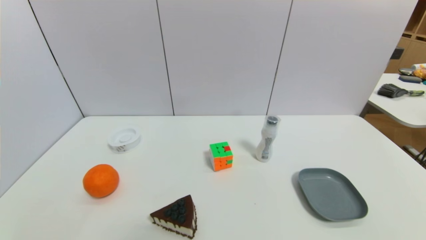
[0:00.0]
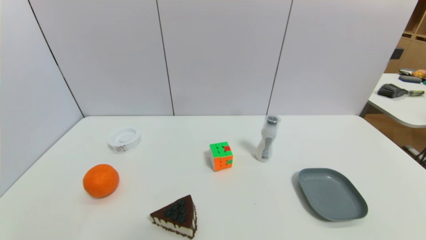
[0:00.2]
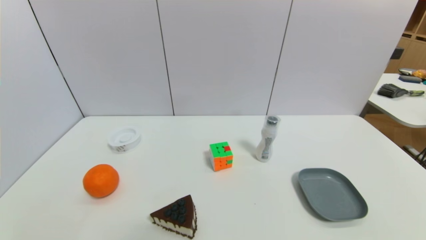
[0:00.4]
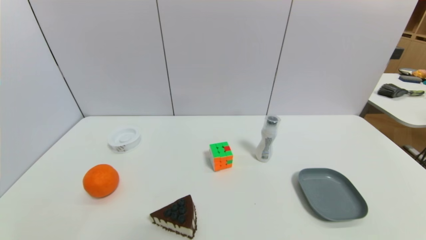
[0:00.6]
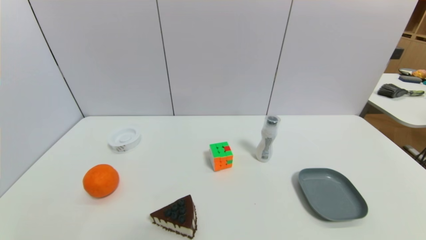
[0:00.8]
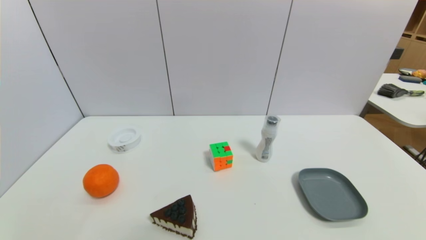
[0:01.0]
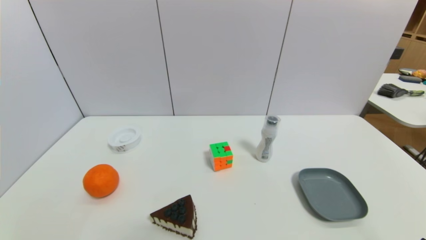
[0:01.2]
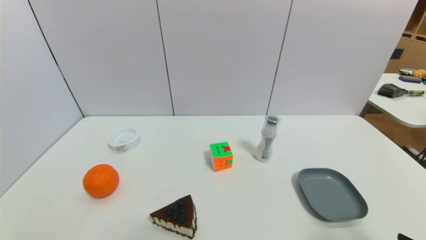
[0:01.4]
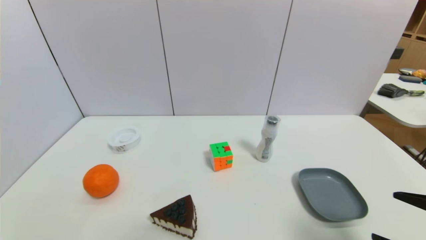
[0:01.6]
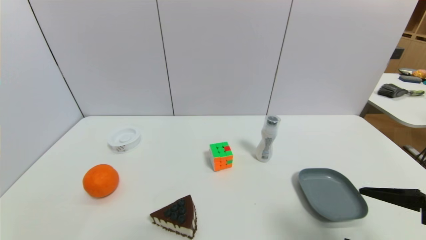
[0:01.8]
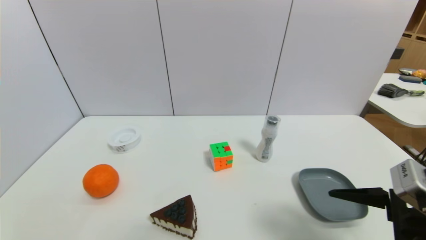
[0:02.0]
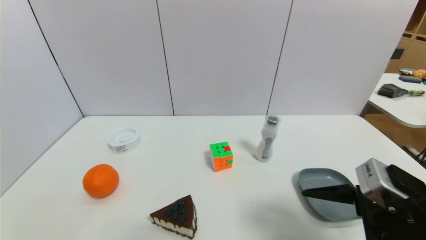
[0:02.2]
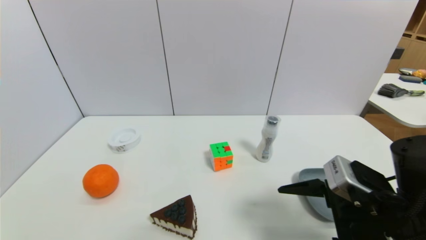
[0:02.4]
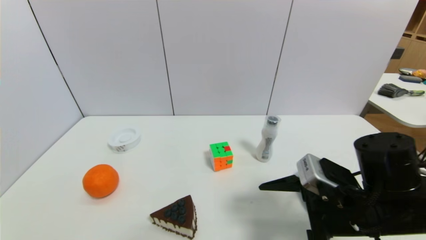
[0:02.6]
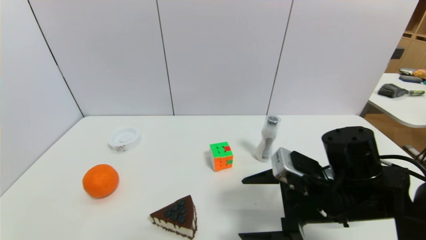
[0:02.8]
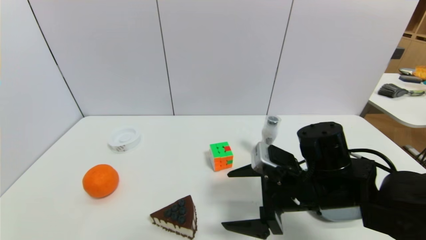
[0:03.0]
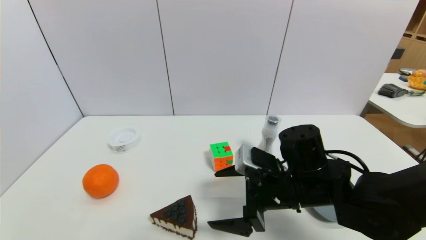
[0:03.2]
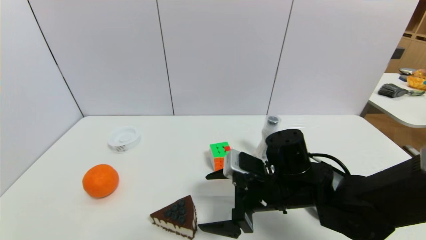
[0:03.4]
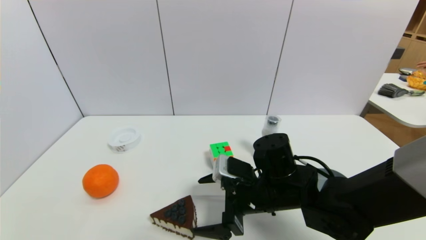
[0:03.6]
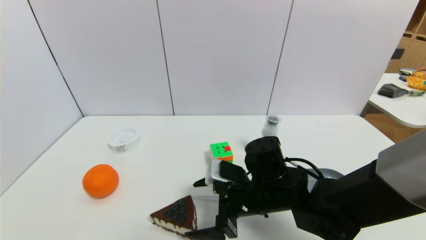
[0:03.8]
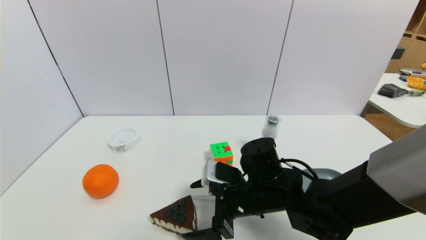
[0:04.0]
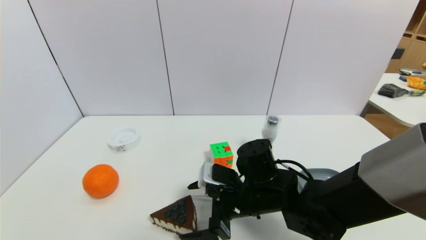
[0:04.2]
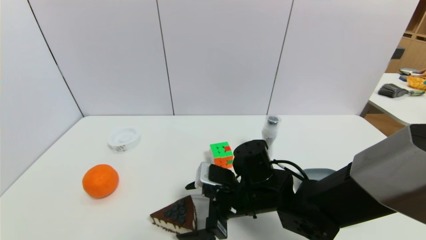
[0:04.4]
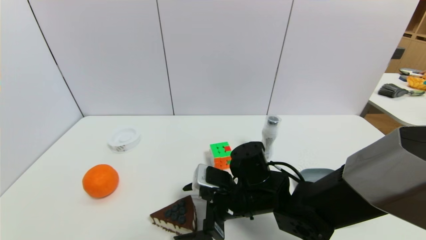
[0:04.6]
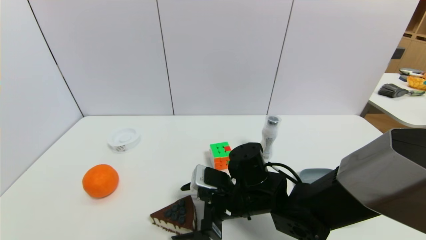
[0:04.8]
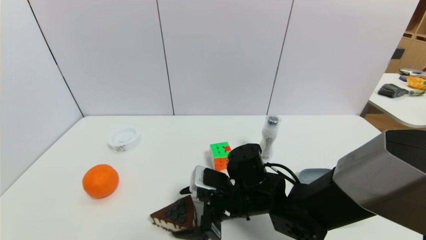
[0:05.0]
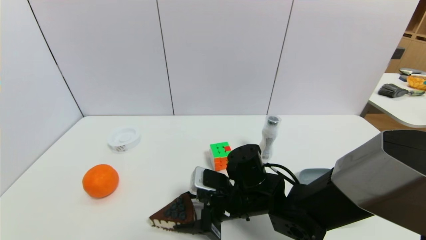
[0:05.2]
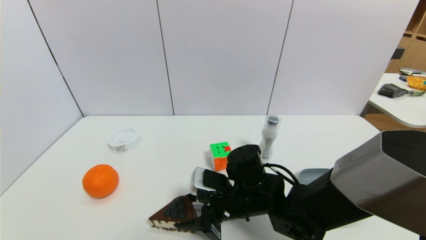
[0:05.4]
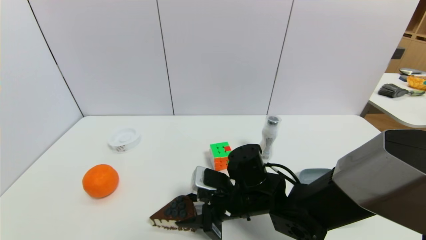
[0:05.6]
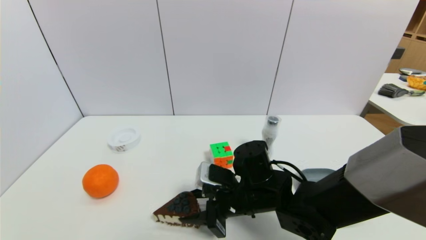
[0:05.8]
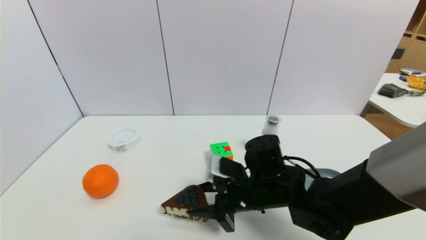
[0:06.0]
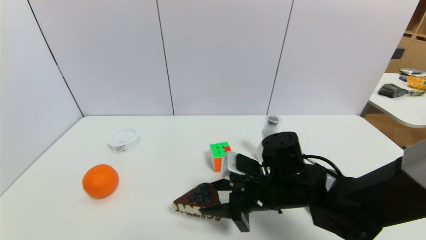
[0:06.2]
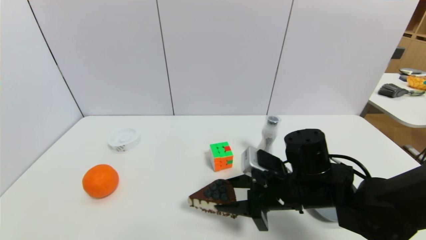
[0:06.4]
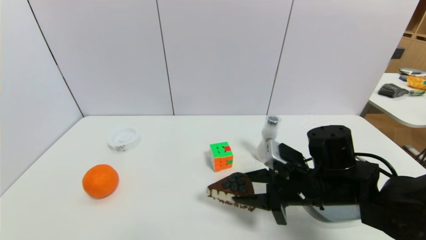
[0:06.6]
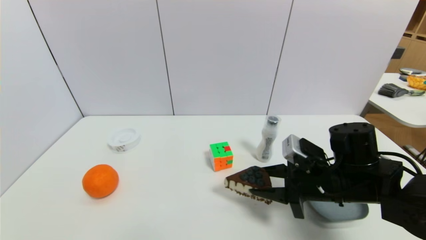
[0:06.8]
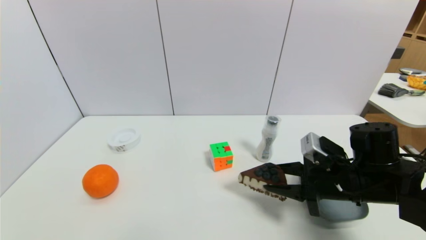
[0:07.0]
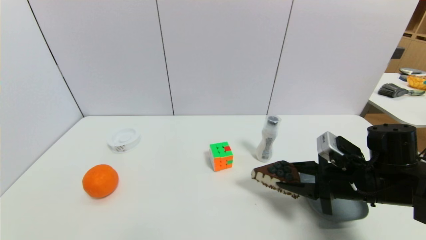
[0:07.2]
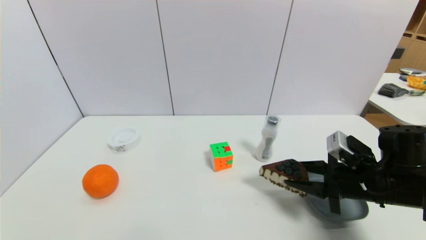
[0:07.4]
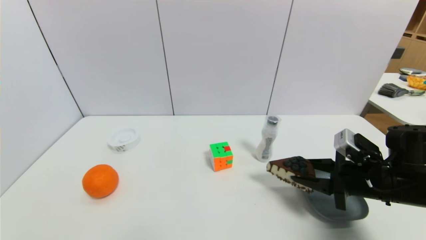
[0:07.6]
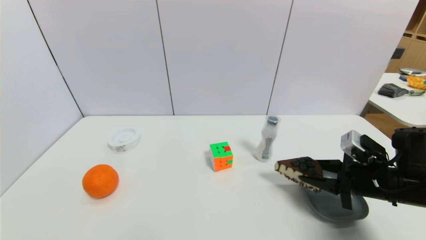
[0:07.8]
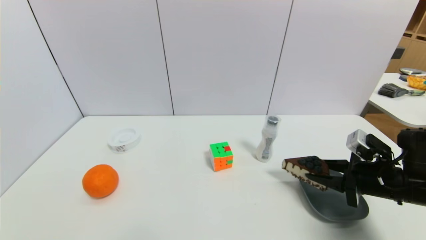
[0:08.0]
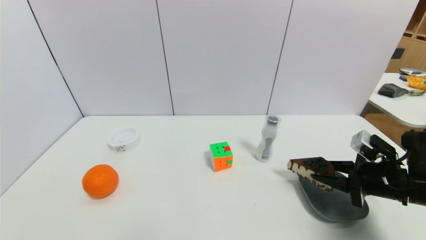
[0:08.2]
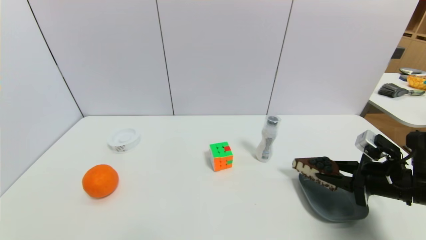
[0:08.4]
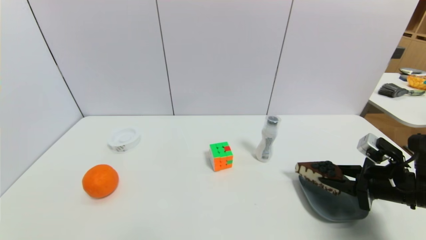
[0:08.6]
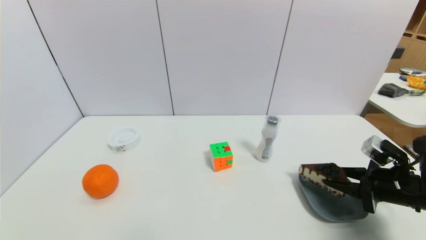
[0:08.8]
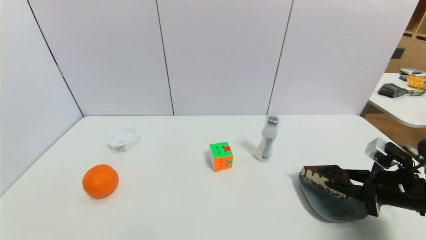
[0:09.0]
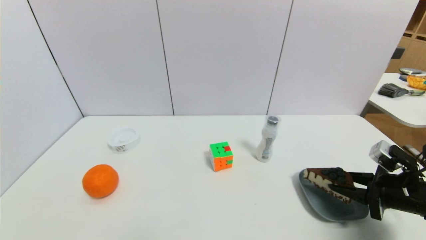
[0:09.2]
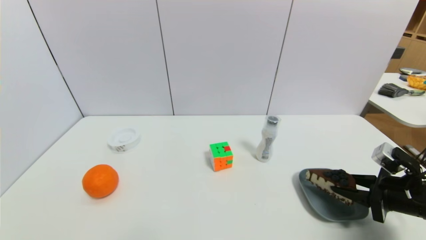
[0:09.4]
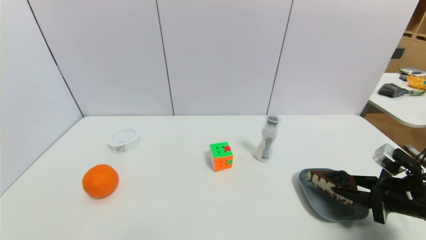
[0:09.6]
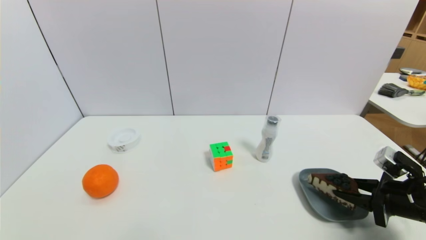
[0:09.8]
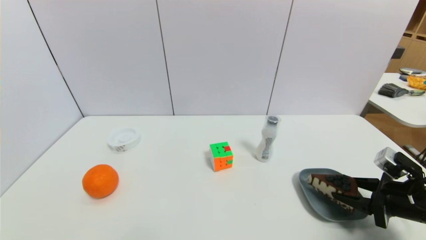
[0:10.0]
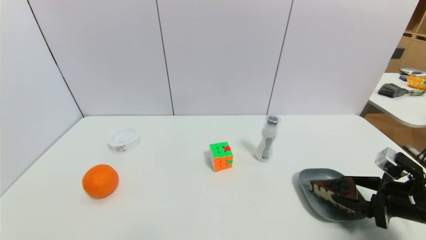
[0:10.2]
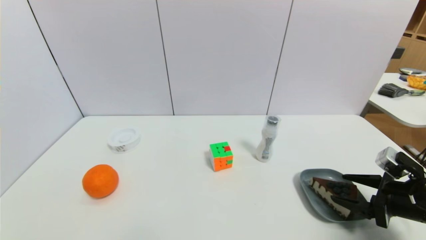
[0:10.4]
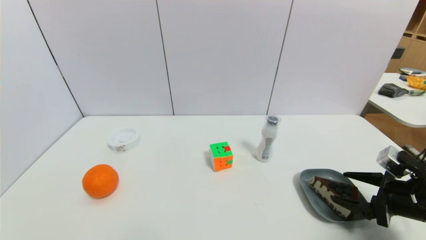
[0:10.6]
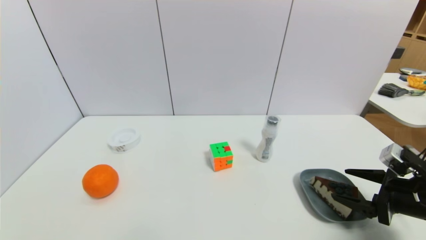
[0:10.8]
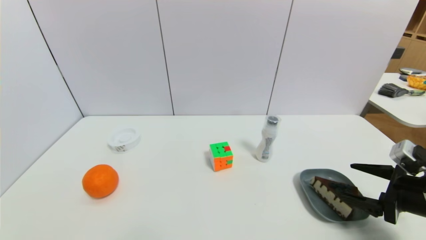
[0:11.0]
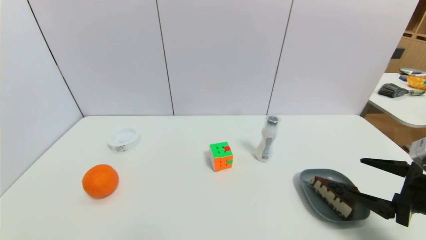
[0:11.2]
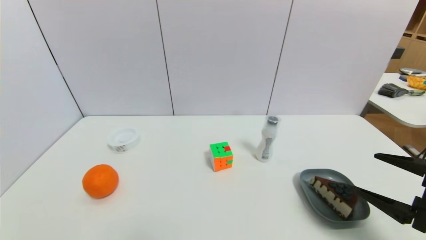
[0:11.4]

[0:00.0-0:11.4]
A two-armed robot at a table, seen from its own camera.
Task of the whole recording: use a gripper to pick the target object and place on the dish.
Step, 0:00.0 to 0:05.4: Grasp the chocolate cake with the right gripper.
Step, 0:05.6 to 0:11.2: Place the chocolate cake on the dish with the right gripper.
0:01.4 to 0:02.8: The right gripper goes some 20 cm forward and to the left.
0:02.8 to 0:04.2: The right gripper goes some 10 cm to the left and downward.
0:04.2 to 0:05.6: The right gripper closes up.
0:05.6 to 0:07.2: The right gripper goes roughly 20 cm to the right.
0:07.2 to 0:08.6: The right gripper shifts some 10 cm to the right.
0:08.6 to 0:10.0: The grippers stay close to where they were, moving slightly.
0:10.0 to 0:11.4: The right gripper heads upward and backward, covering roughly 10 cm, and opens its fingers.

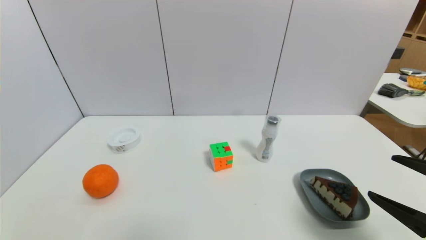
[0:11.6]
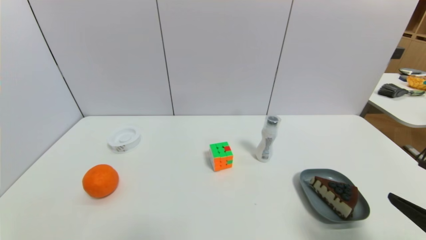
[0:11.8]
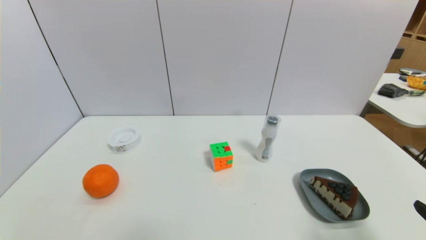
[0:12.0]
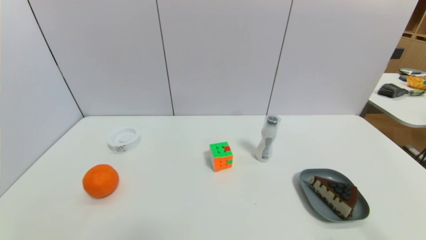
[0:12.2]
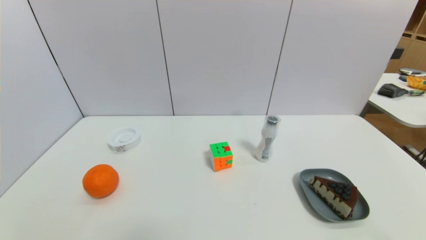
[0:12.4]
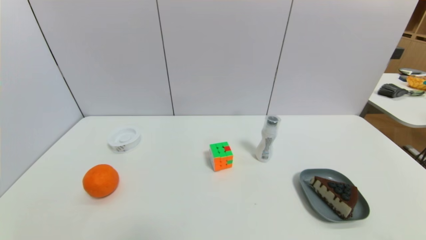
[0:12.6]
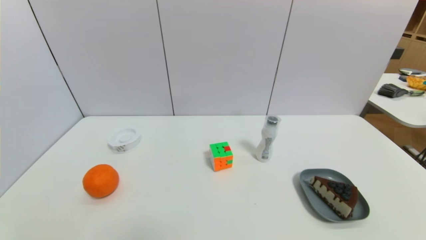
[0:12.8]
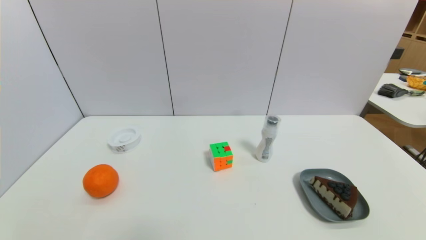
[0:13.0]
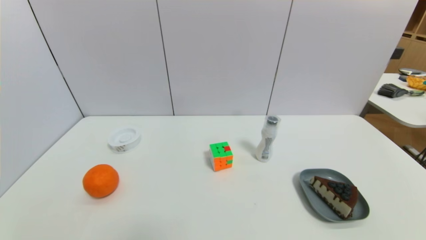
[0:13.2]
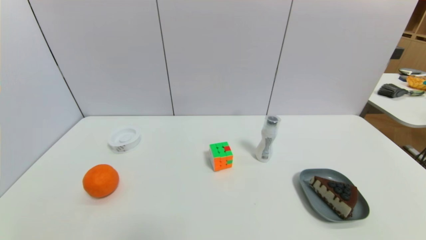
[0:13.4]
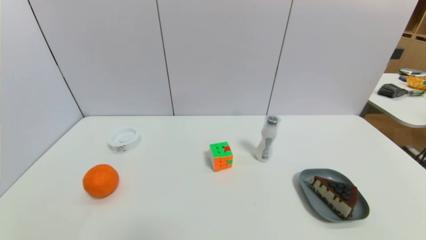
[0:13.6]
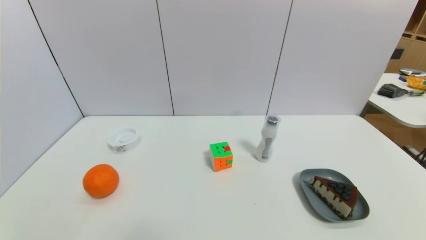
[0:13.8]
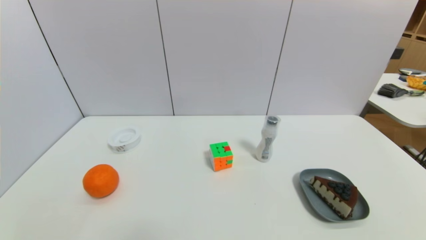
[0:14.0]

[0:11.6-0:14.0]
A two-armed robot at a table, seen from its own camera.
Task of the whole recording: use a gripper to pick the target object and place on the dish.
0:11.6 to 0:12.8: The right gripper travels backward and downward by about 15 cm.
